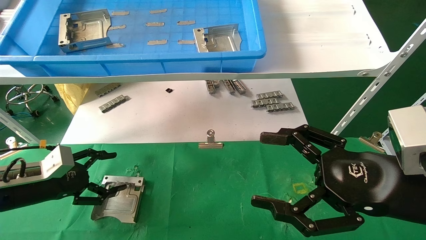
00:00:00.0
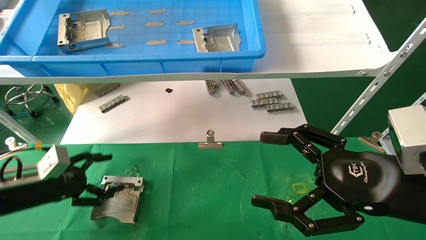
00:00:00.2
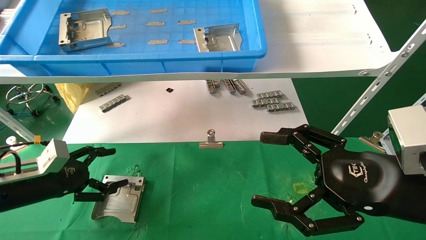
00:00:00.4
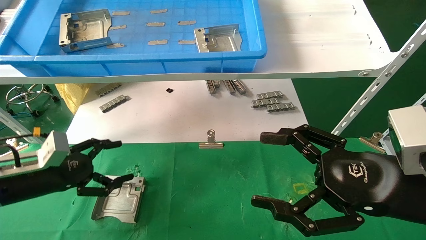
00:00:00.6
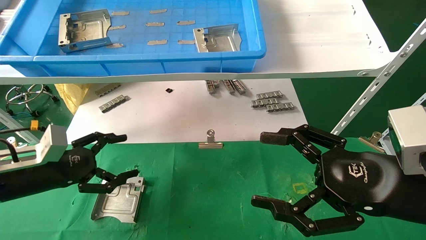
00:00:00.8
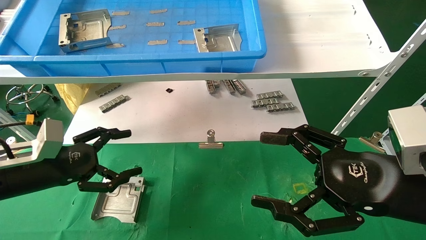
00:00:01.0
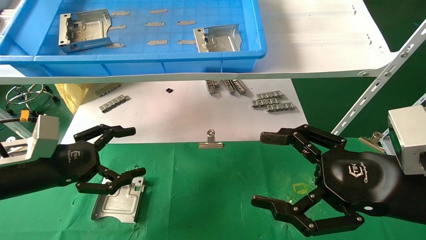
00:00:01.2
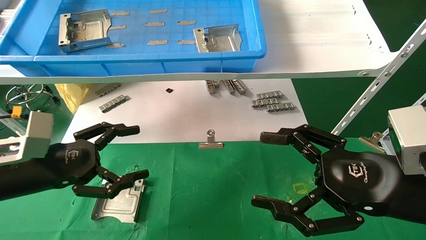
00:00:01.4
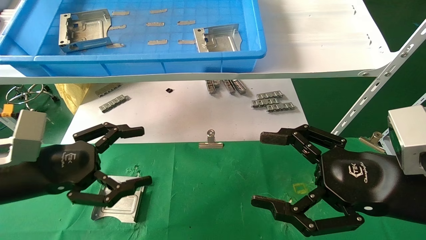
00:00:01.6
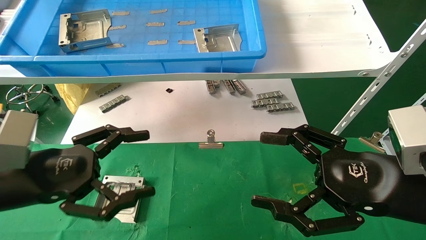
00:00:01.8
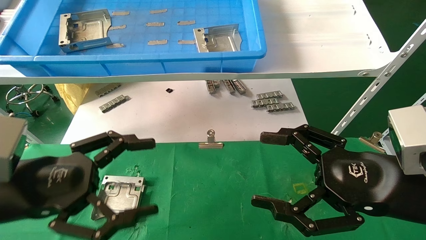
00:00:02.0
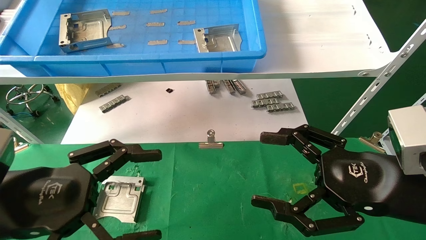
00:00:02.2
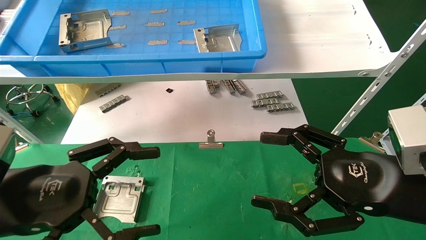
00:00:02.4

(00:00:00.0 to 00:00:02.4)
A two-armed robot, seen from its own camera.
Task of the whole recording: use the mechanical arm to pick up the parts and place them on the table.
00:00:00.0 - 00:00:01.2: The left gripper moves upward and to the right, roughly 10 cm.
00:00:01.2 - 00:00:02.4: The left gripper goes approximately 10 cm backward and to the right.
